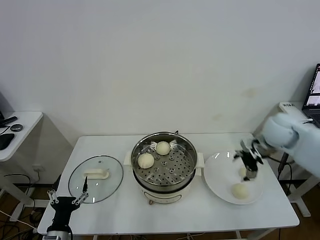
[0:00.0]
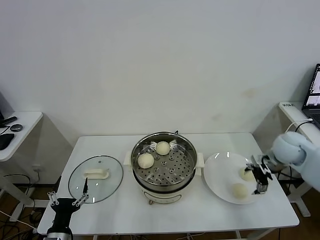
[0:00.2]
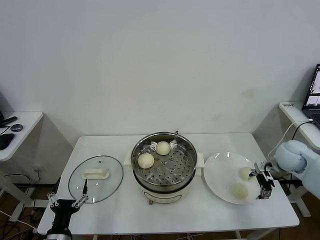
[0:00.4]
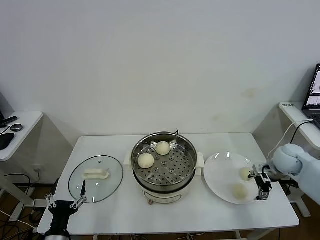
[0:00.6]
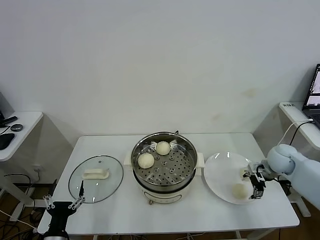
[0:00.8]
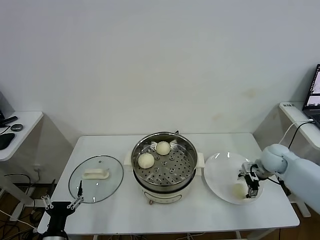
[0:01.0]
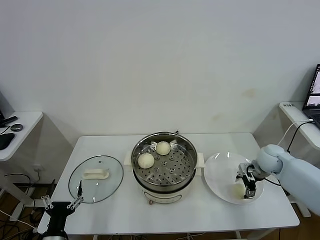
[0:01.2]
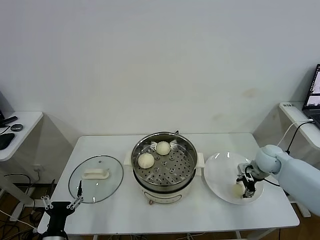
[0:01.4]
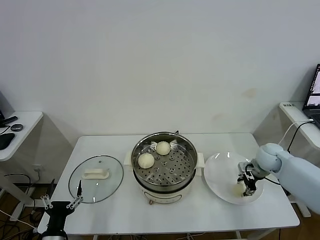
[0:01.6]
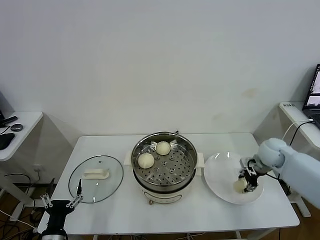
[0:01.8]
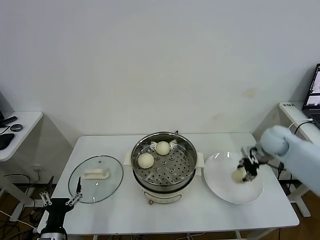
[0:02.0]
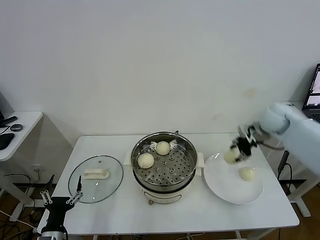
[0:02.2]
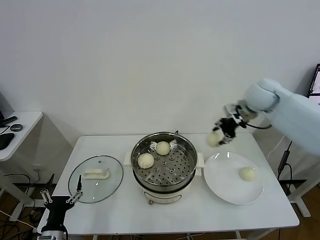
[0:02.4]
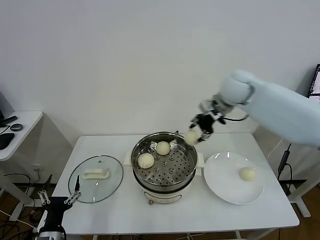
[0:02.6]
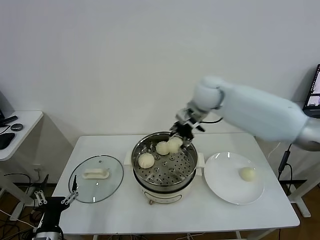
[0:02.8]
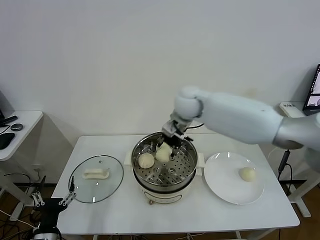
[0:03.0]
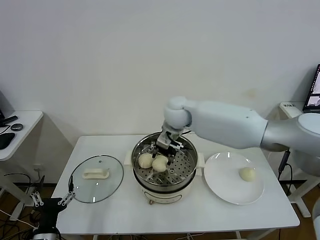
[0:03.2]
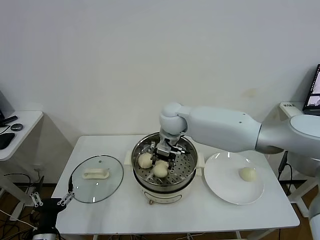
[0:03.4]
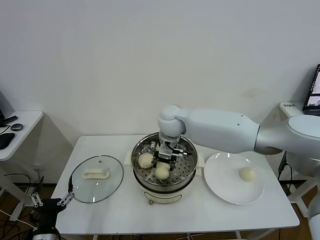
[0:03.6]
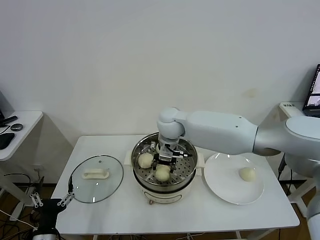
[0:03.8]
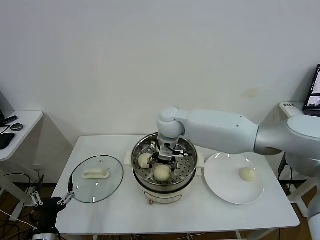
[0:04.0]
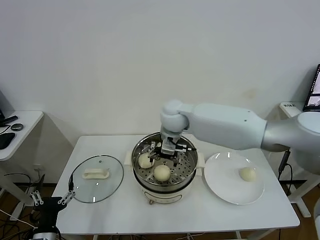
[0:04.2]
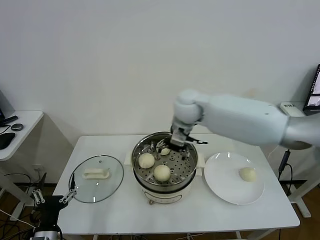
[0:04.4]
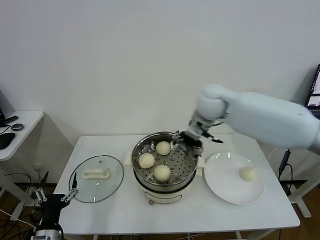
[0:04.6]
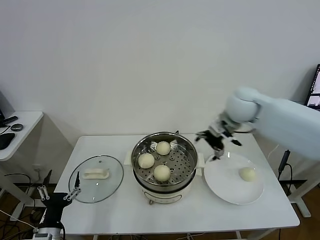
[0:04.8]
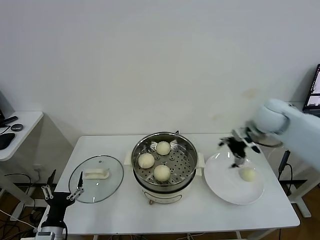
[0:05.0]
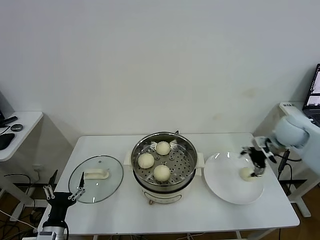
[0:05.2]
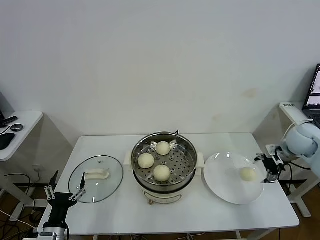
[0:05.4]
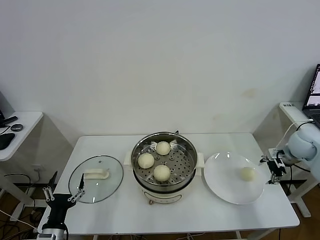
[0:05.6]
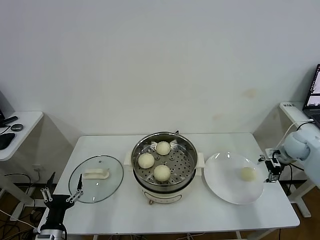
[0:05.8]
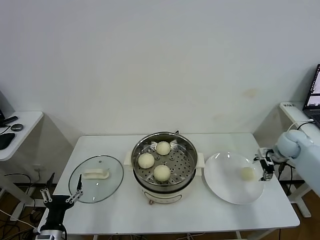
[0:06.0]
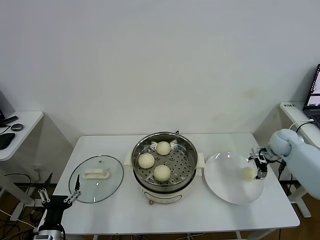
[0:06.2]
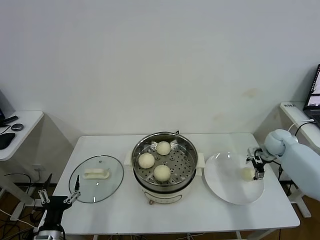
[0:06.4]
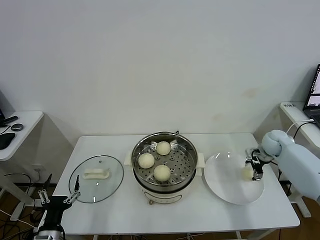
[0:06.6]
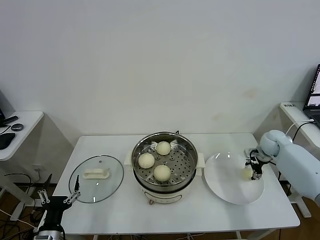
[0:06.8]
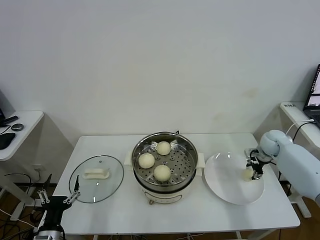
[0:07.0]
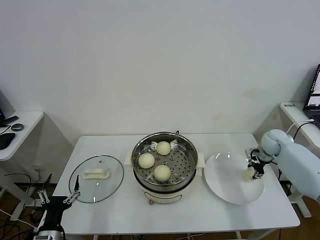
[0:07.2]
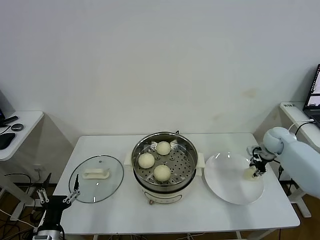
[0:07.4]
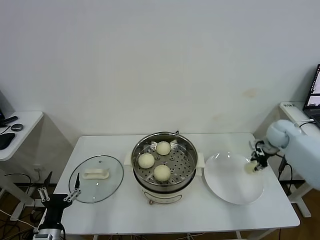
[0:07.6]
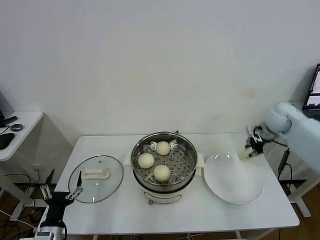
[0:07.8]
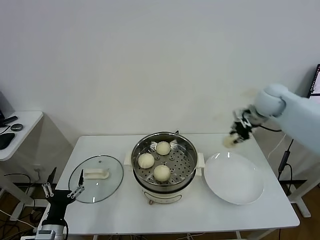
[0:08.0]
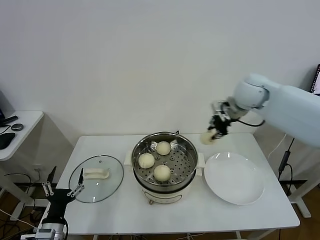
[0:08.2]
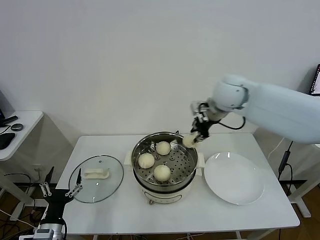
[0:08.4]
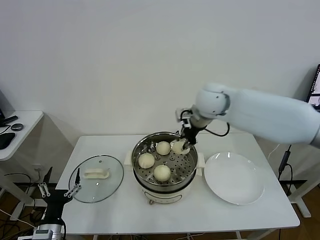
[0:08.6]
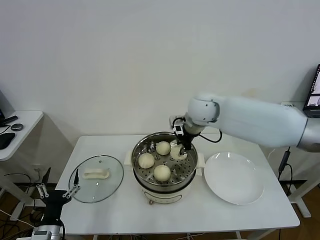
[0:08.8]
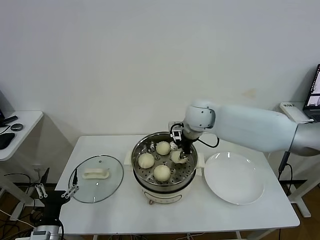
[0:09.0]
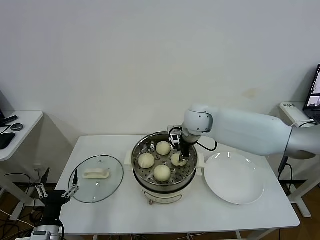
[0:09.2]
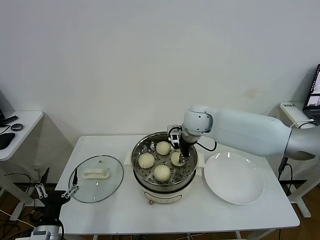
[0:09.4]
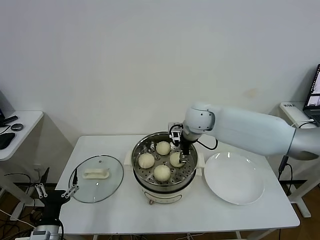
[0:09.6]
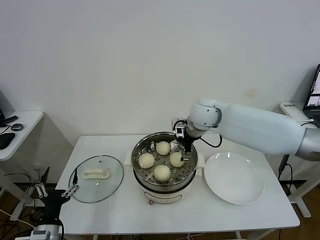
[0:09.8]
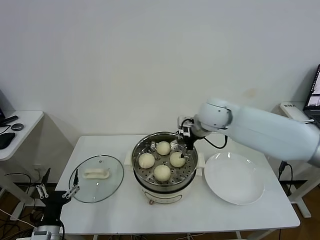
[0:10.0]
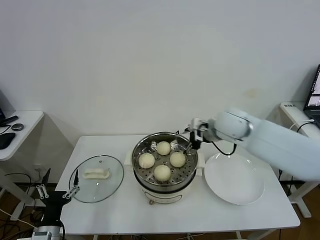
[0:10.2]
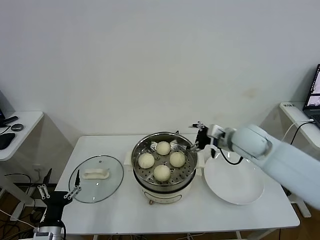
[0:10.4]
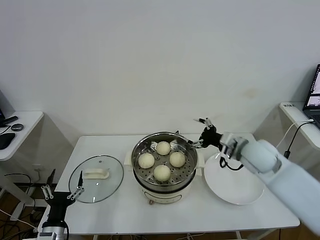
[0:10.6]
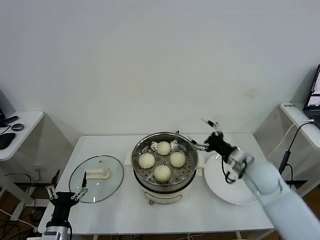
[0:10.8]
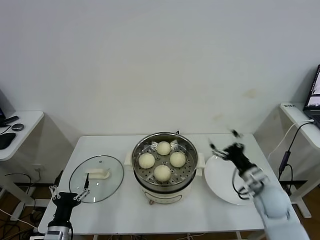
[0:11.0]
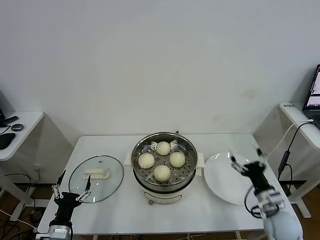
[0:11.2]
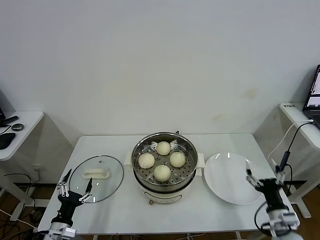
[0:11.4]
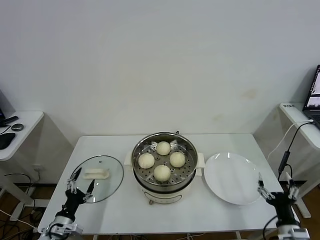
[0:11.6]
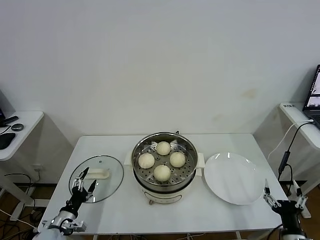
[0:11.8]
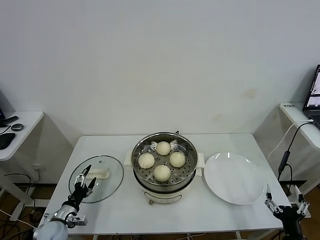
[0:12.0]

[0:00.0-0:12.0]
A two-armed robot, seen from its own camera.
Task of the whole recording: take steamed baozi put them in steamer.
Step, 0.0 to 1.4 s: Grasp the baozi in the plate with right gripper.
Step, 1.8 to 4.2 s: Place the baozi on the steamer with right gripper.
Step, 4.4 to 7.0 s: Grasp the baozi in the plate with right gripper.
Step, 7.2 to 9.8 s: Place the baozi on the steamer with right gripper.
0.0 to 1.6 s: The right gripper shifts about 15 cm downward, and closes up.
1.6 to 3.0 s: The right gripper goes some 35 cm to the left and upward.
3.0 to 4.4 s: The right gripper opens up.
4.4 to 6.0 s: The right gripper is displaced to the right by some 40 cm.
6.0 to 7.6 s: The right gripper moves some 5 cm, and closes up.
7.6 to 9.0 s: The right gripper is displaced to the left by about 30 cm.
9.0 to 10.4 s: The right gripper is displaced to the right and backward by about 15 cm, and opens its fingers.
10.4 to 12.0 s: The right gripper shifts about 40 cm backward, downward and to the right. The left gripper is displaced forward and downward by about 10 cm.

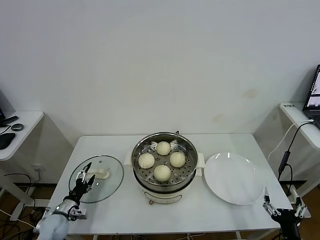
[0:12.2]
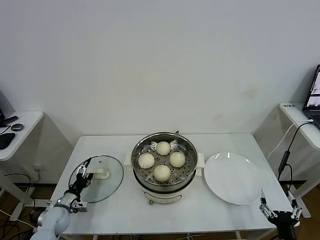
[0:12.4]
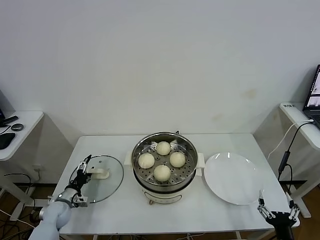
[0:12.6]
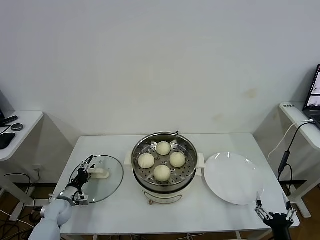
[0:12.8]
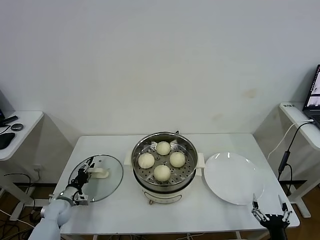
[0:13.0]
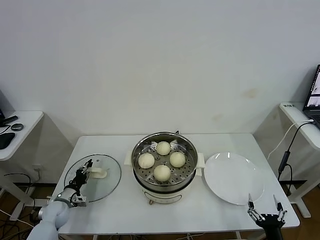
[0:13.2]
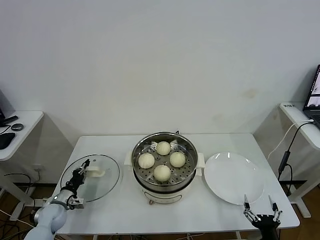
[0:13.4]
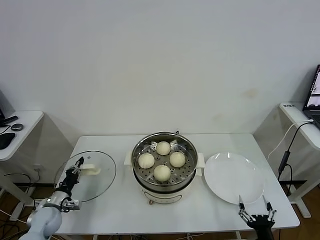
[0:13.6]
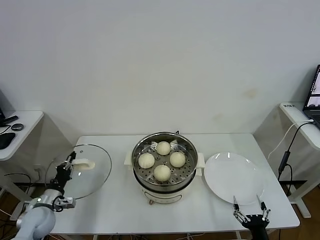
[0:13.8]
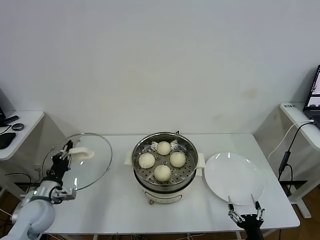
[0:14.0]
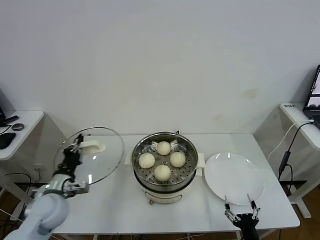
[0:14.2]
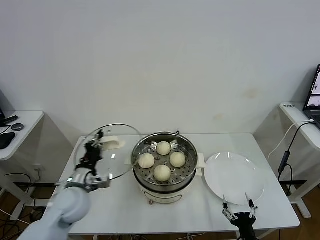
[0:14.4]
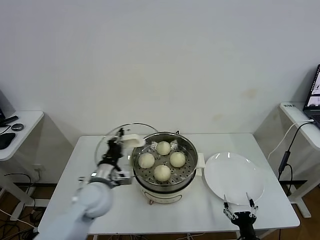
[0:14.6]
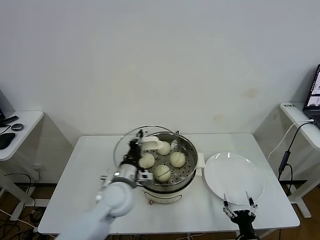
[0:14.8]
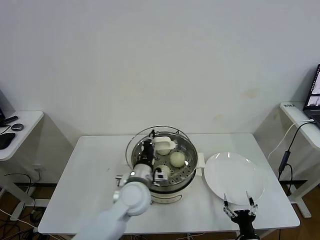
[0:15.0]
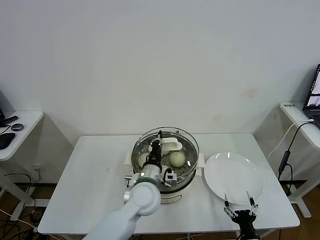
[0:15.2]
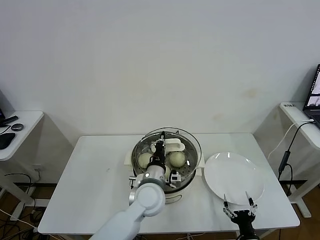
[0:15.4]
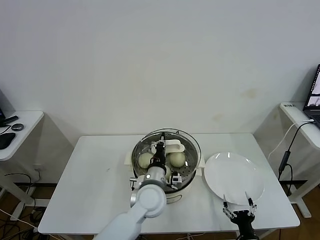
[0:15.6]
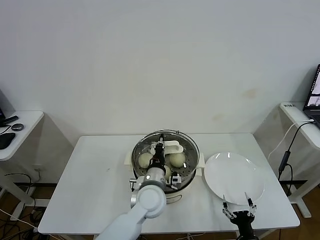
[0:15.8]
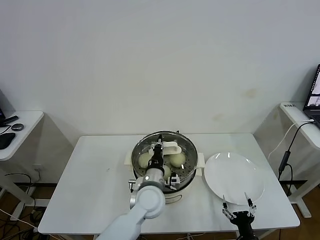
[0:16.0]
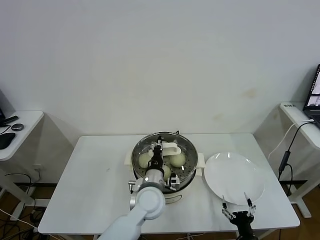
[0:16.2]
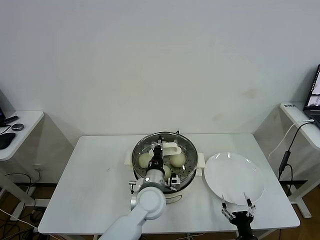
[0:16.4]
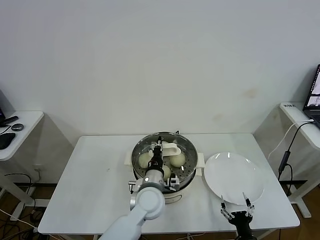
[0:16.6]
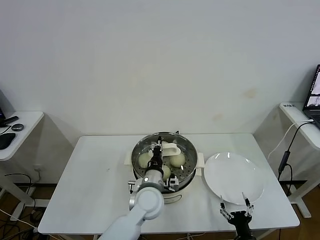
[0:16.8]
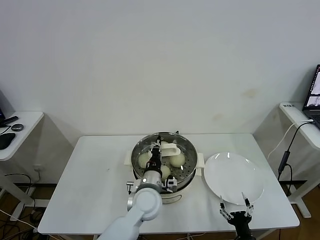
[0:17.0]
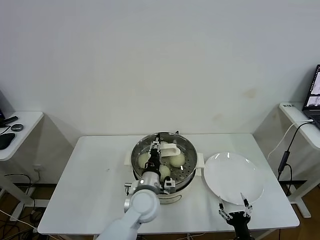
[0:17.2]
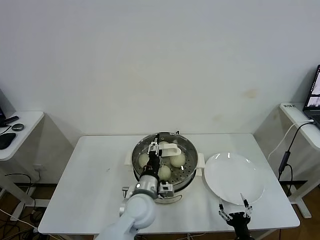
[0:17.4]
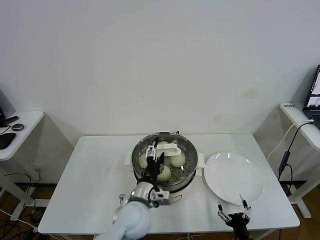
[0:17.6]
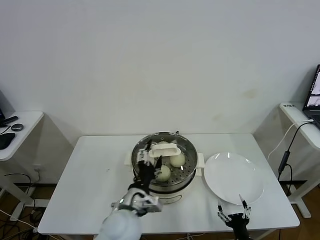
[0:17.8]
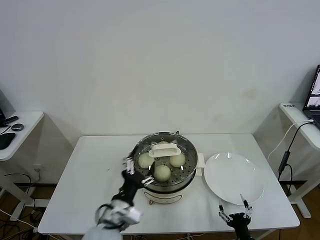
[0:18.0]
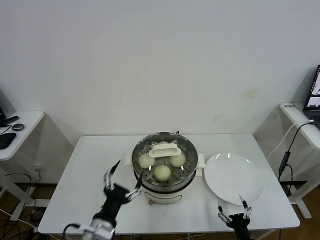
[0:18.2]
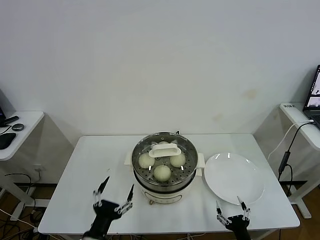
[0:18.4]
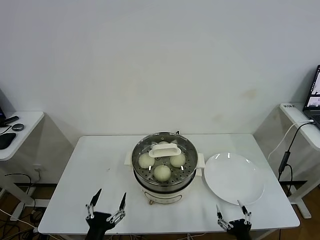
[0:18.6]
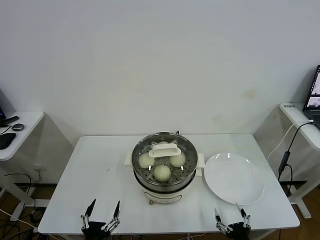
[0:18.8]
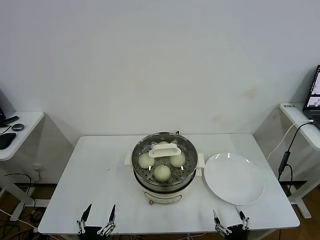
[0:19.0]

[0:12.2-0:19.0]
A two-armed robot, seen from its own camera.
Task of the whole recording: take steamed baozi put them in steamer.
Step, 13.6 to 17.6 s: Place the pot lid on the steamer with left gripper.
12.2 to 13.6 s: The right gripper shifts by about 5 cm. The left gripper closes up.
13.6 to 15.0 s: The right gripper shifts by some 5 cm; the left gripper shifts approximately 35 cm to the right and upward.
15.0 to 16.2 s: The left gripper travels to the right by about 5 cm.
16.2 to 17.6 s: The left gripper shifts by roughly 5 cm, and opens its fingers.
17.6 to 19.0 s: The right gripper is displaced upward by some 5 cm. Meanwhile the left gripper goes roughly 30 cm backward, to the left and downward.

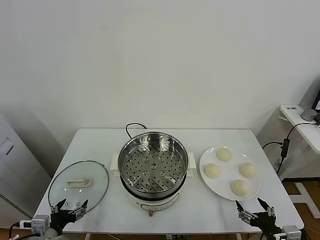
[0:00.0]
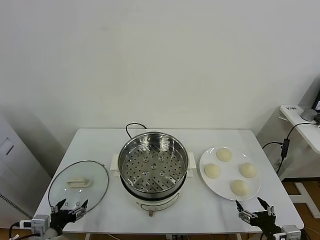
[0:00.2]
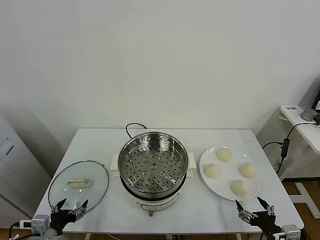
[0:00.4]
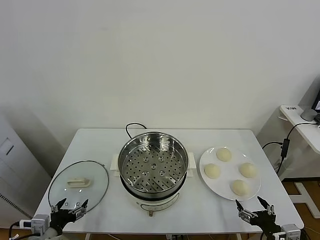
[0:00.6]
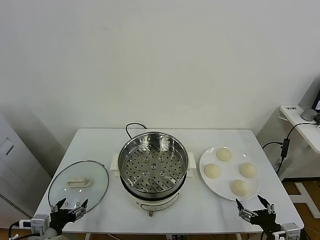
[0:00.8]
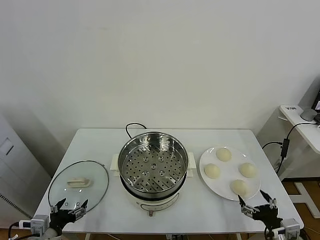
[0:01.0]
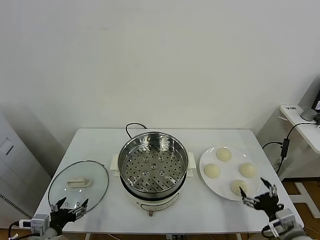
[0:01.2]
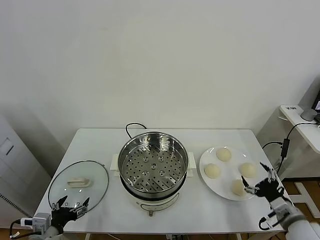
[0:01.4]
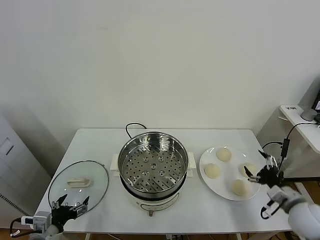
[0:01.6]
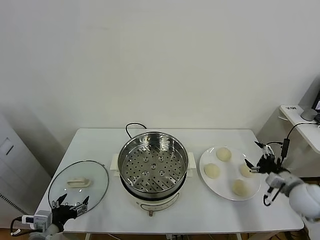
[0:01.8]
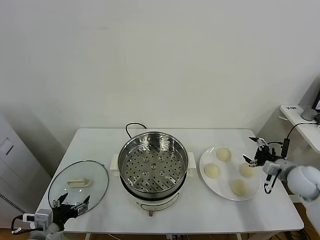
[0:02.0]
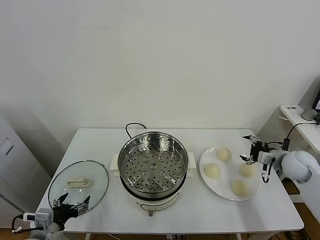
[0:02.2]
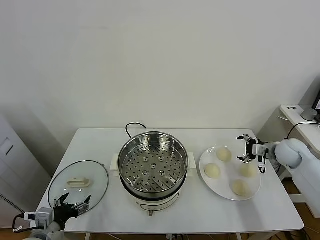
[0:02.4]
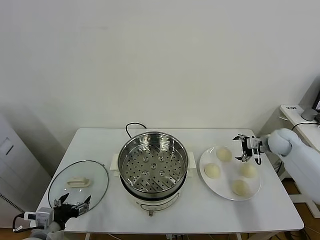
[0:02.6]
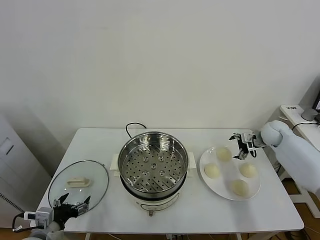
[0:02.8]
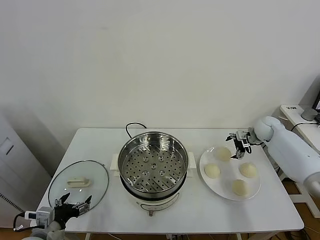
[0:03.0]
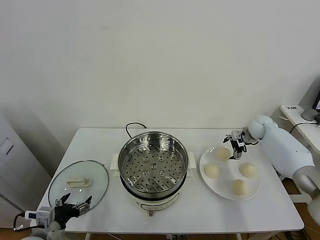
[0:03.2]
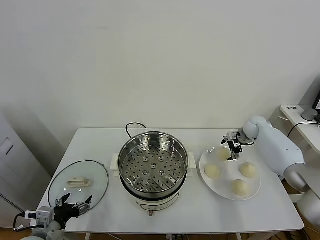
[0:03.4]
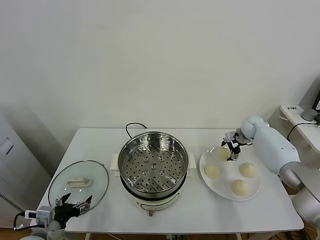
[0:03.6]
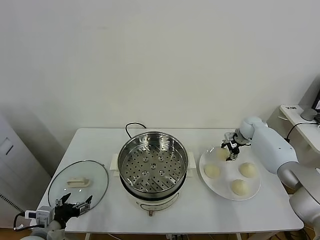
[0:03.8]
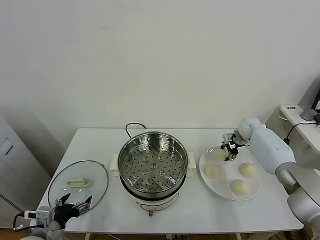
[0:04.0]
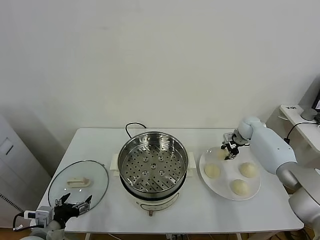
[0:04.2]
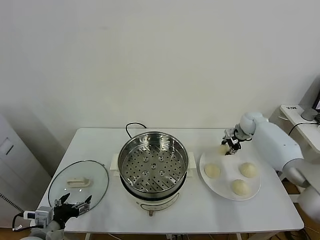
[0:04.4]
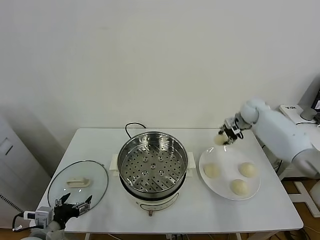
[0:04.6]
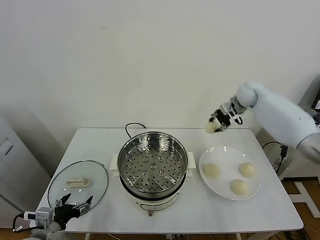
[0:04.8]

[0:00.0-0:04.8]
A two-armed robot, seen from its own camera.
Task of the whole recording: take steamed baozi put them in steamer.
Step, 0.0 to 3.8 s: Grasp the baozi in the plate with right gripper.
1.6 to 3.2 s: The right gripper shifts some 30 cm forward.
3.2 to 4.8 s: The right gripper heads upward and to the left, covering some 20 cm, and closes.
